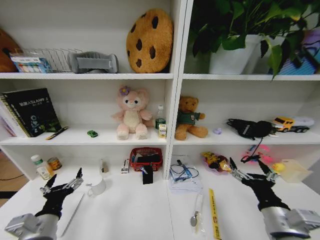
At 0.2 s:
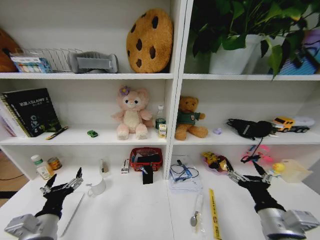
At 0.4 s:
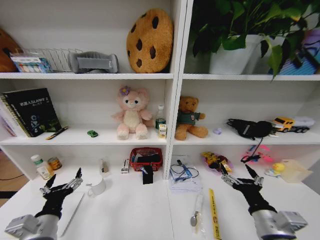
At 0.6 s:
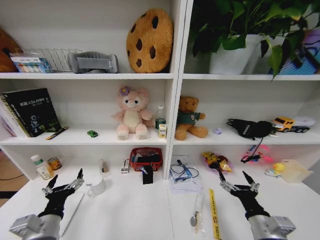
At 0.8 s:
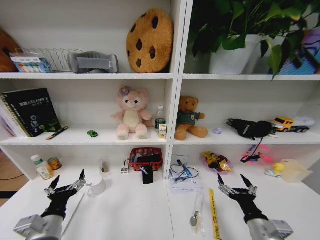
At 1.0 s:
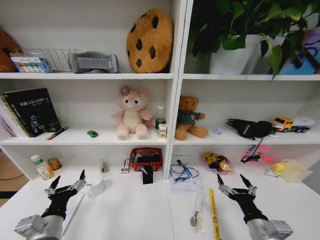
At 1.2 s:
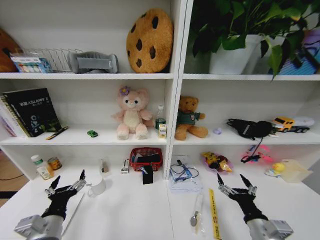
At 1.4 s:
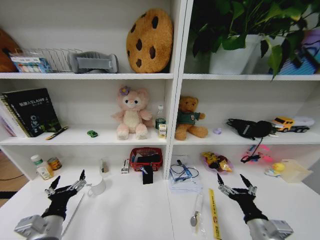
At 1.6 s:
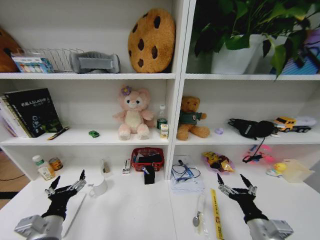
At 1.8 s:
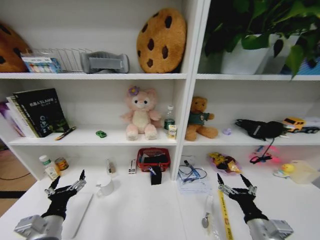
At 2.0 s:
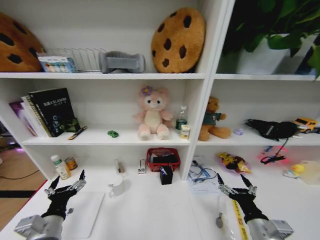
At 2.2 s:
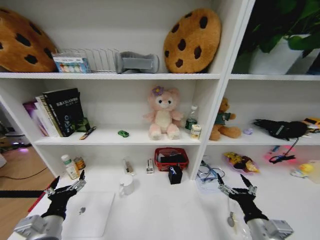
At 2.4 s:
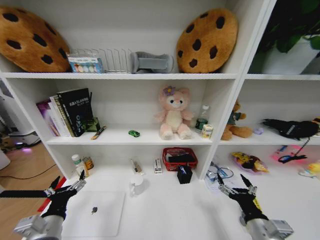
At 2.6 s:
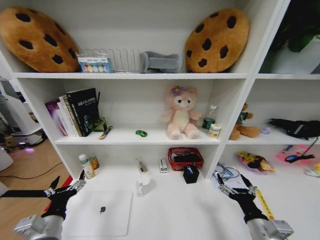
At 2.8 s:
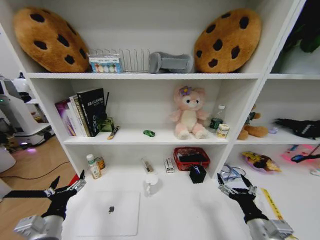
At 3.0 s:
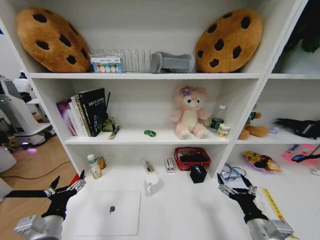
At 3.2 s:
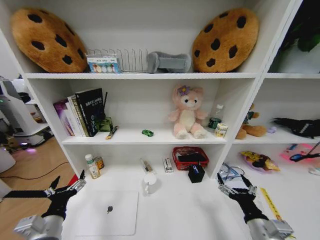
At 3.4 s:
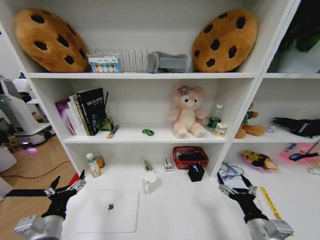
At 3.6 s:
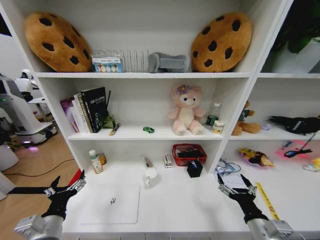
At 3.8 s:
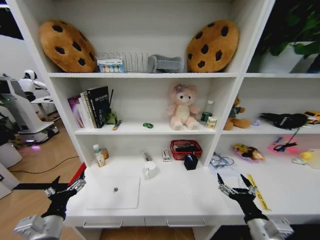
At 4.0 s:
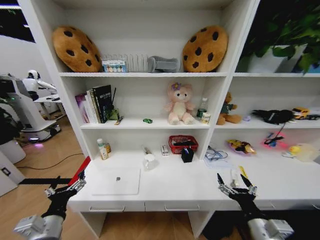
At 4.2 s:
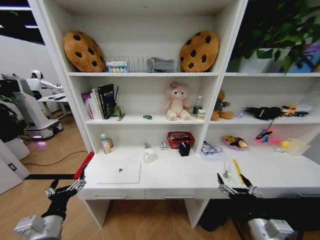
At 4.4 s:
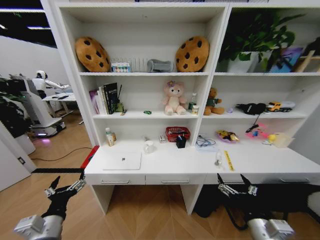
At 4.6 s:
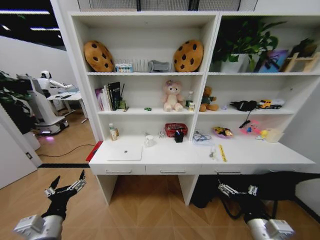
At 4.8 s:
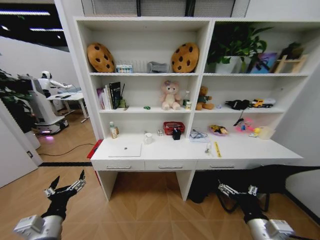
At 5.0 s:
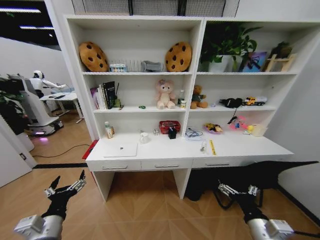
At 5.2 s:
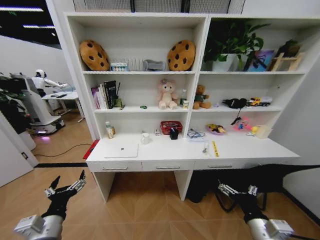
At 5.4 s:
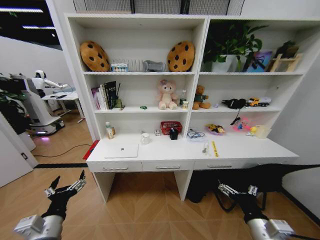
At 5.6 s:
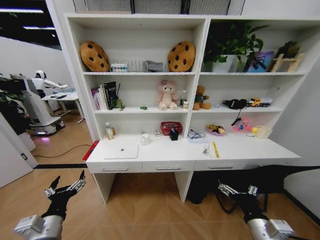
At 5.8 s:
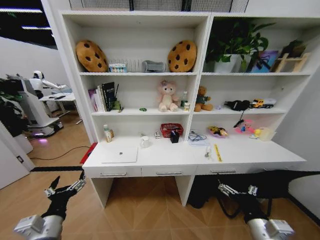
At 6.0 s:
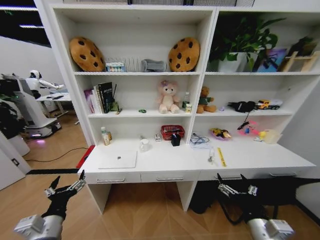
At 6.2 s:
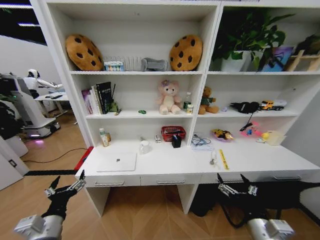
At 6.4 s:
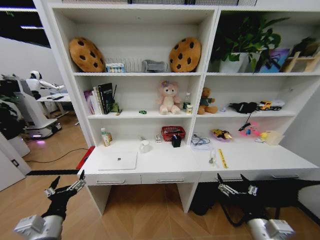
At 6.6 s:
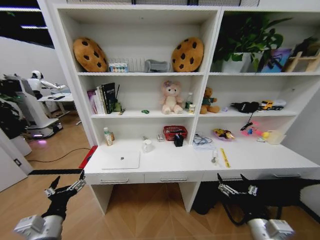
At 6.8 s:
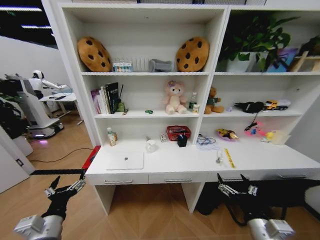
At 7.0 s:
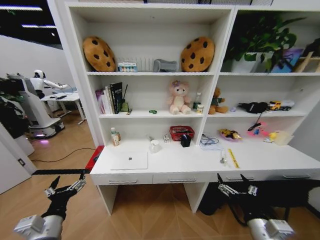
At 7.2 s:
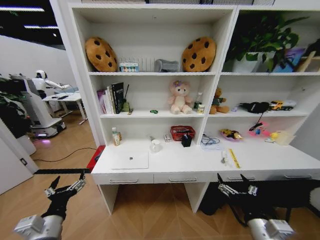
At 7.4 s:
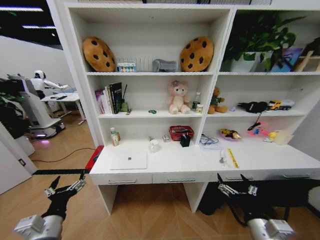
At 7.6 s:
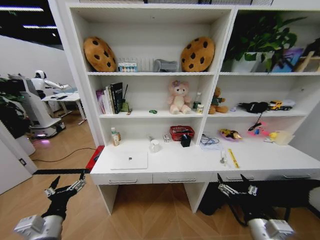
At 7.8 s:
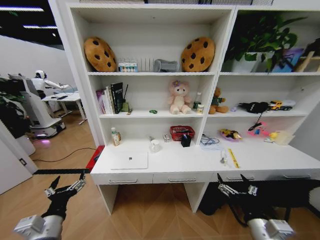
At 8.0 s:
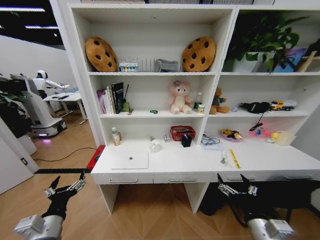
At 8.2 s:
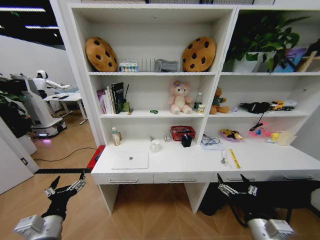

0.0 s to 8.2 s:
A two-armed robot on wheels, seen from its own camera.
Task of the whole recording: Organize the objects on the table.
0.0 to 1.6 s: The right gripper is displaced downward by some 10 cm.
